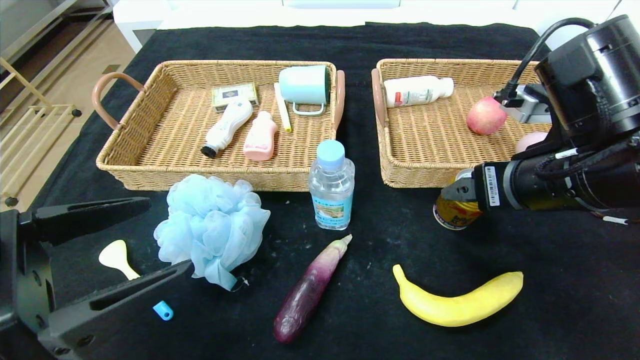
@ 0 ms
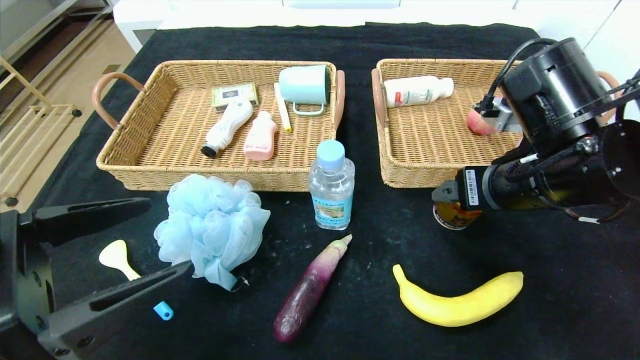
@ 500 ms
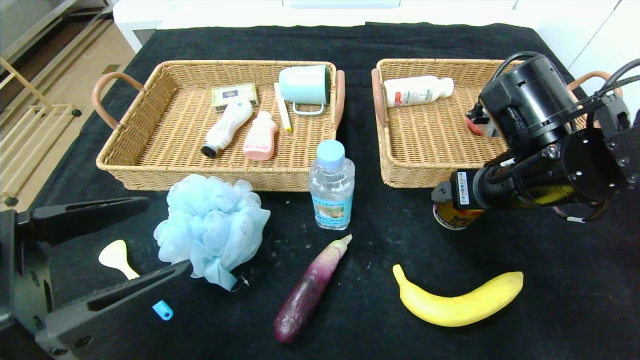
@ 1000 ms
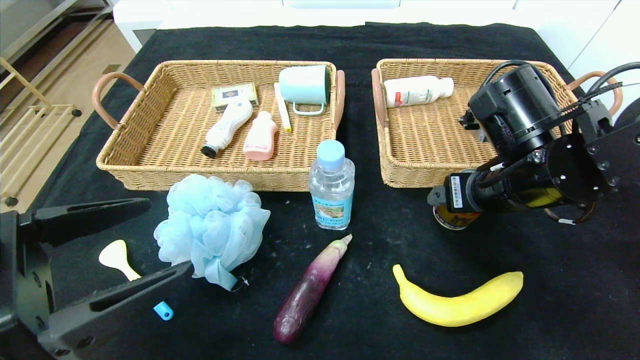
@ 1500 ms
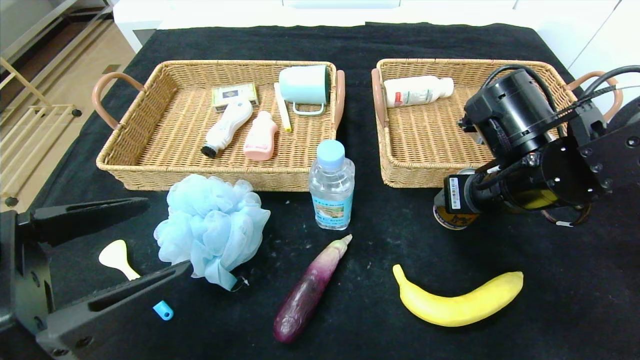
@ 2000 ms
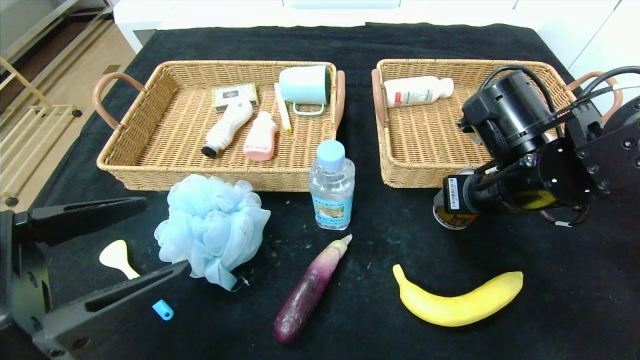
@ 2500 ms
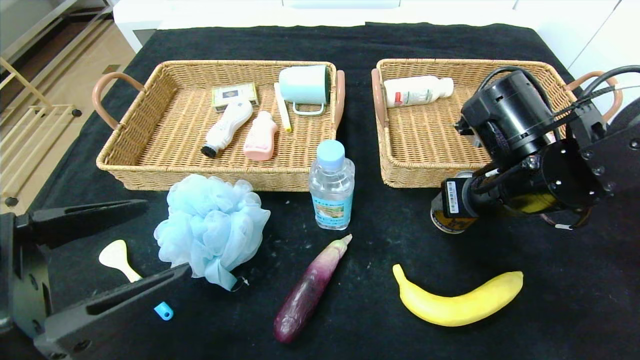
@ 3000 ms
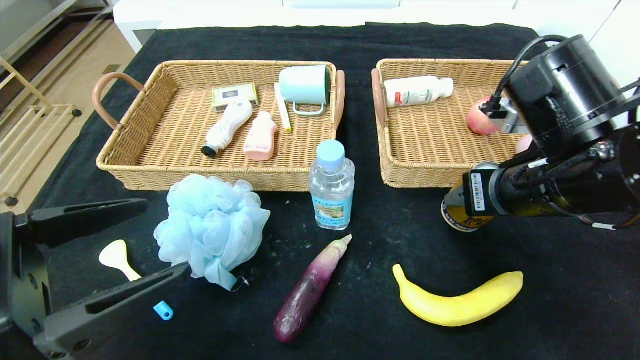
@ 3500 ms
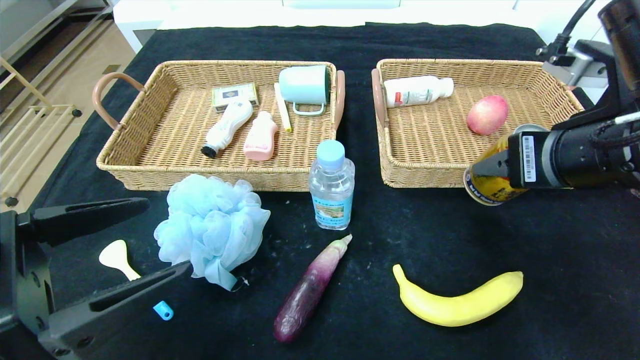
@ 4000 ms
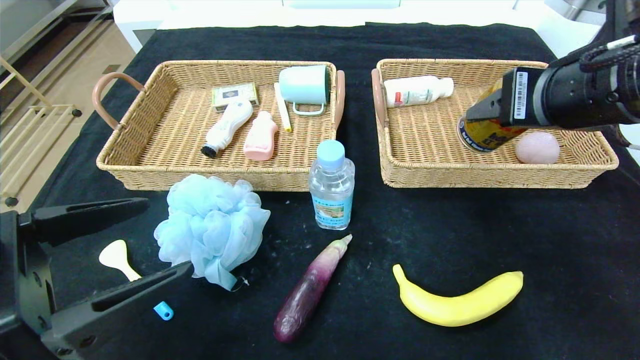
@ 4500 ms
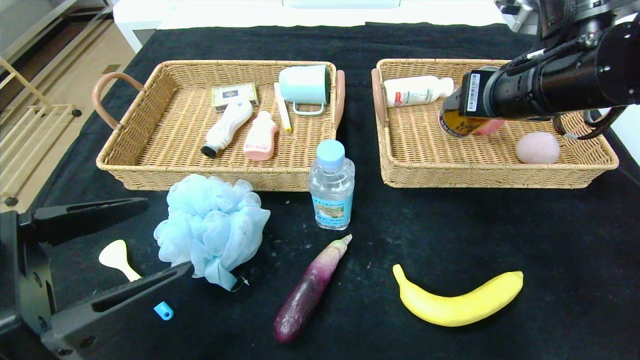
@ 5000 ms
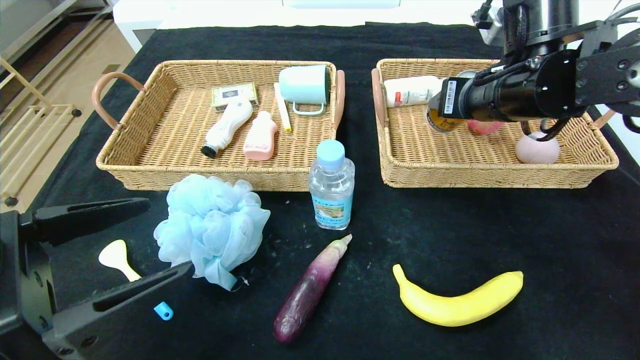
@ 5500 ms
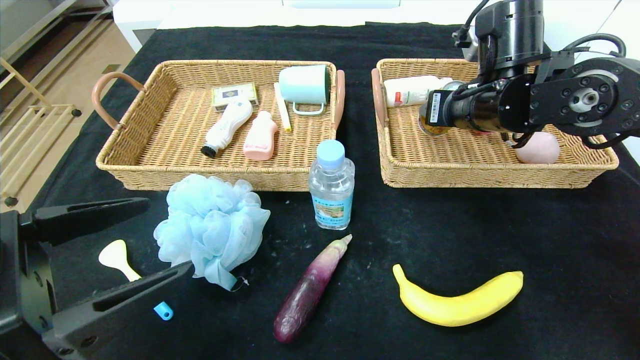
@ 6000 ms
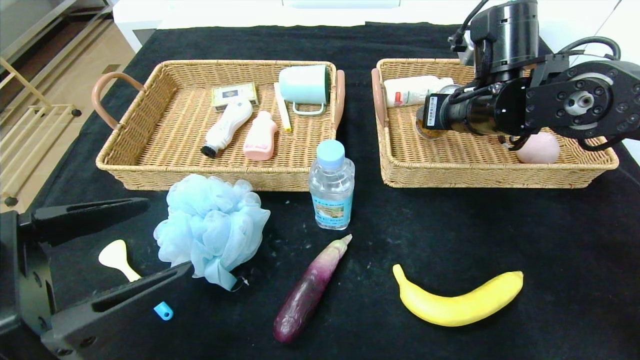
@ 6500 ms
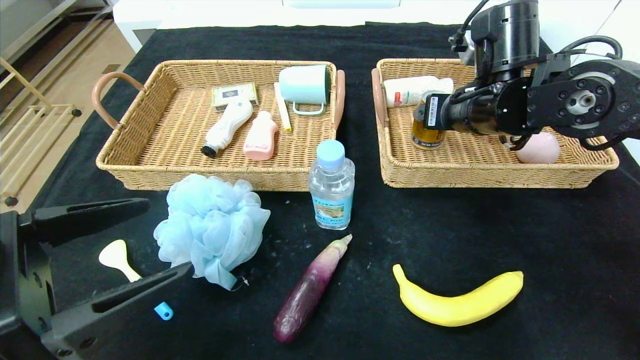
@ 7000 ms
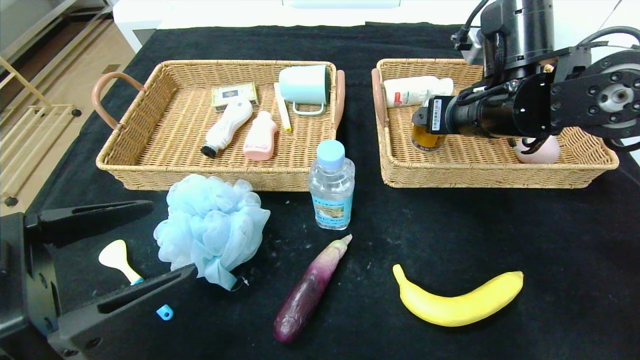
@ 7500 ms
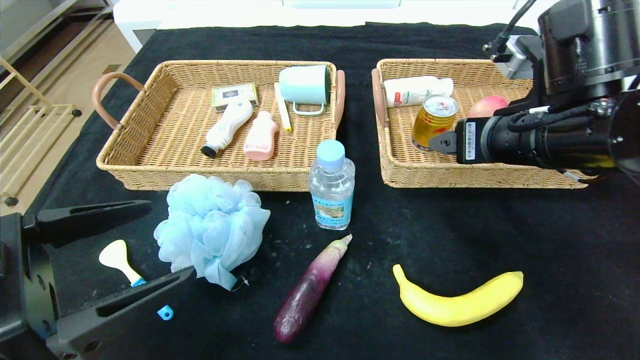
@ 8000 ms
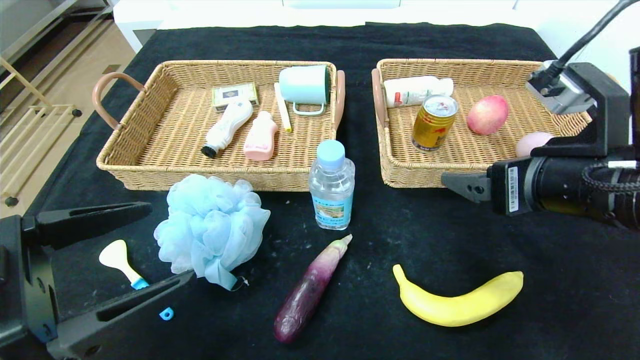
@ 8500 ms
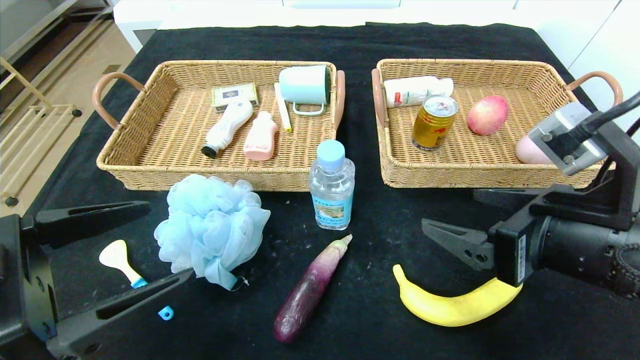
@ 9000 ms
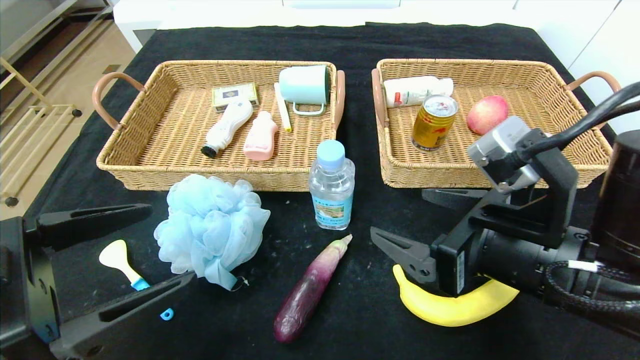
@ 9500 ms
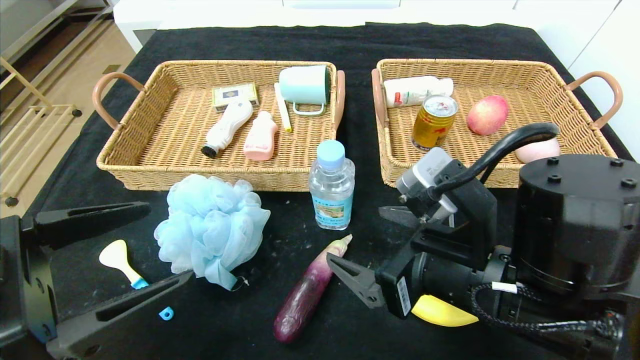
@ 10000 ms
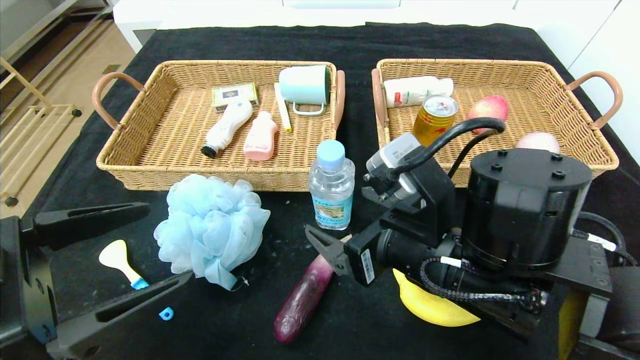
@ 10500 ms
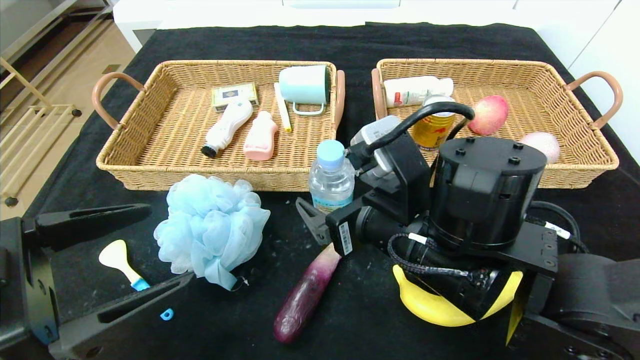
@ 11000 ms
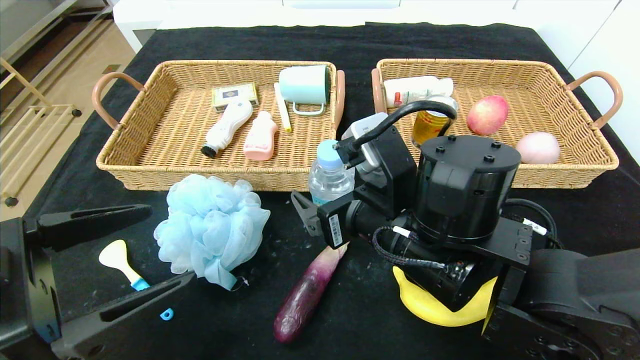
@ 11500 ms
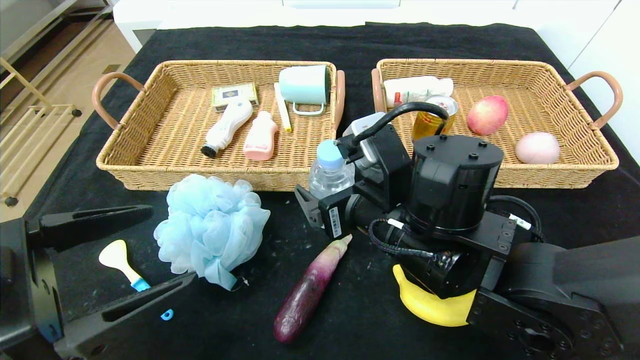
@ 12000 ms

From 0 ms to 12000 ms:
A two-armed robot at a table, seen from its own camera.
Step, from 0 ms to 7000 ms: Grasp the Red Bull and put it in the right basket.
From 0 ms to 2000 ms: The right gripper ends up some 5 cm from where it was, and closes its fingers.
From 2000 ms to 4000 ms: The right gripper moves backward and upward, roughly 10 cm.
From 4000 ms to 6000 ms: The right gripper is displaced forward by roughly 15 cm.
From 6000 ms to 8000 ms: The right gripper travels backward by roughly 10 cm, and opens.
From 8000 ms to 10000 ms: The right gripper travels downward, backward and to the left by approximately 15 cm.
From 10000 ms to 12000 ms: The right gripper goes approximately 10 cm forward and to the left.

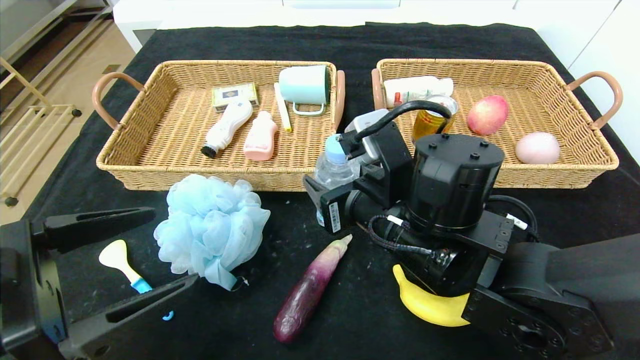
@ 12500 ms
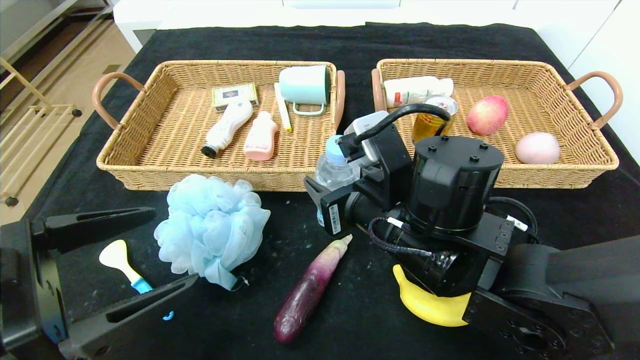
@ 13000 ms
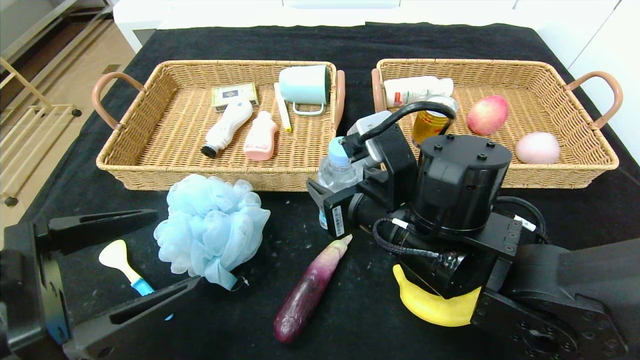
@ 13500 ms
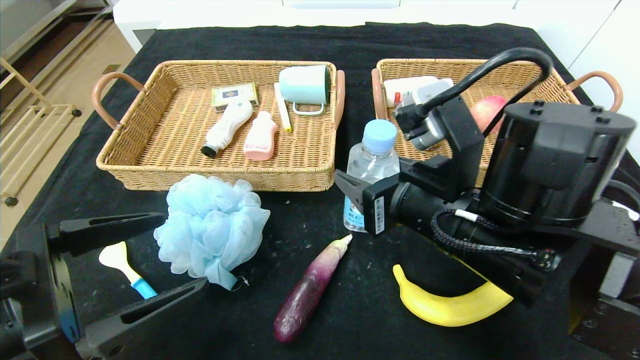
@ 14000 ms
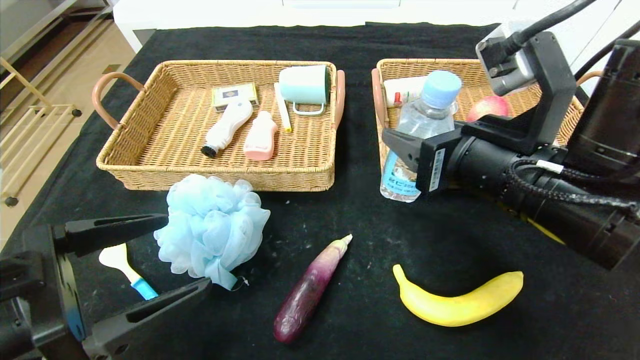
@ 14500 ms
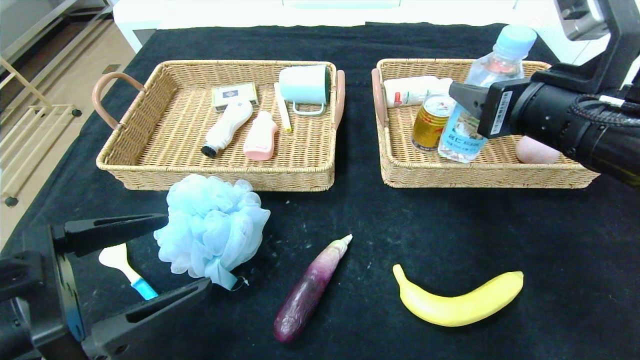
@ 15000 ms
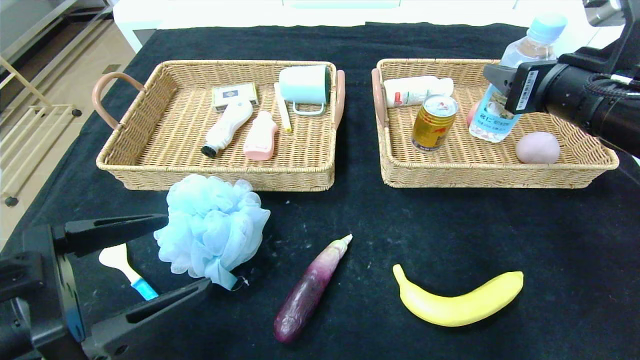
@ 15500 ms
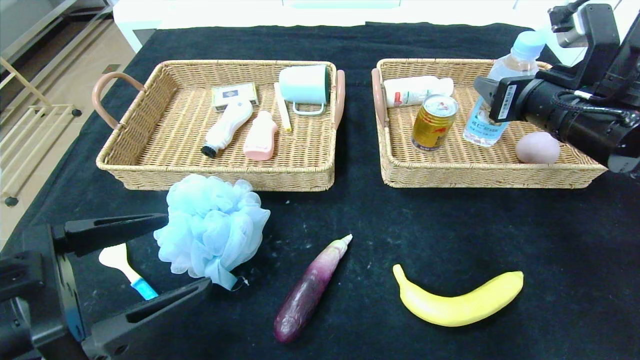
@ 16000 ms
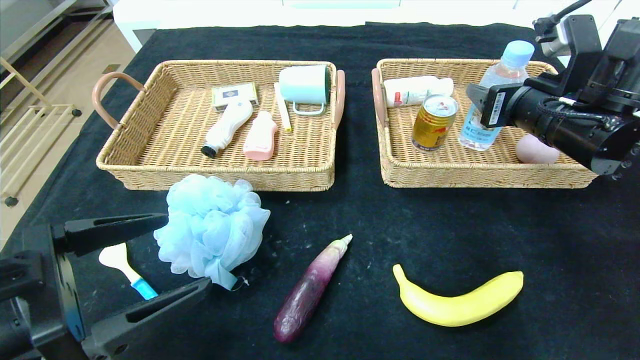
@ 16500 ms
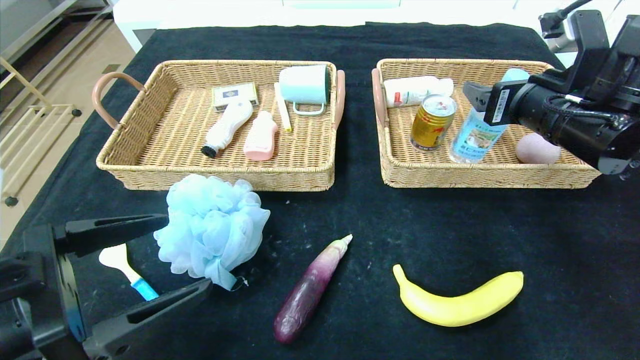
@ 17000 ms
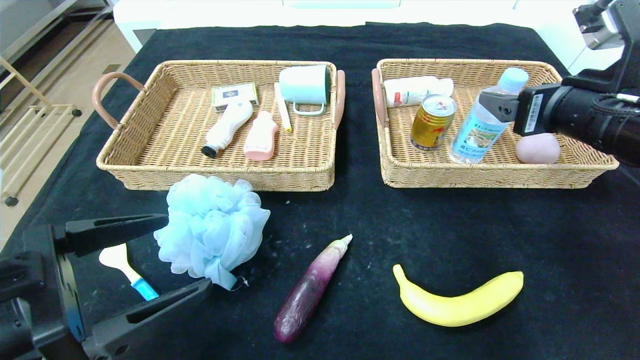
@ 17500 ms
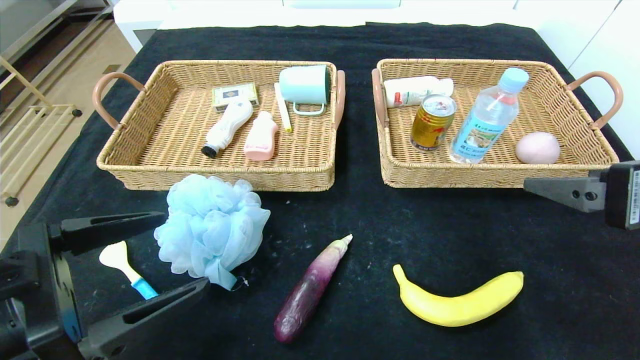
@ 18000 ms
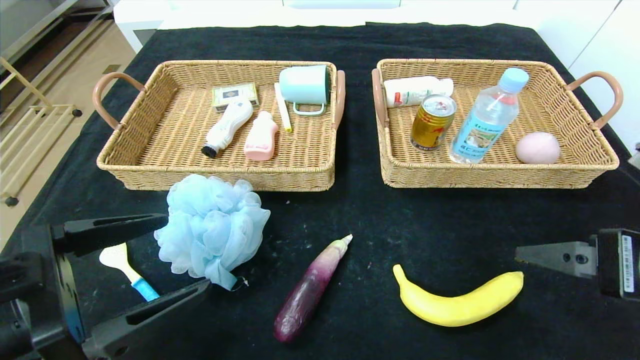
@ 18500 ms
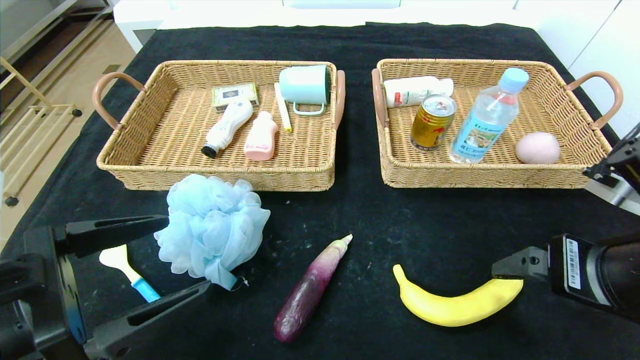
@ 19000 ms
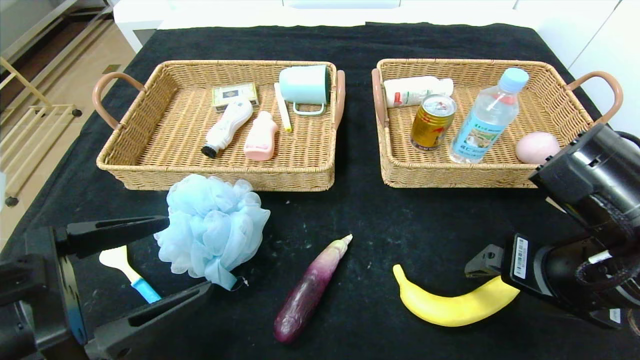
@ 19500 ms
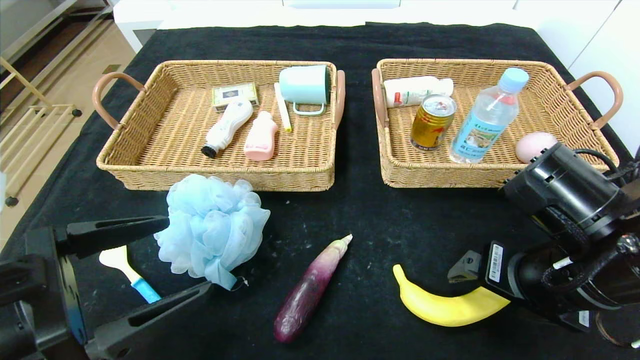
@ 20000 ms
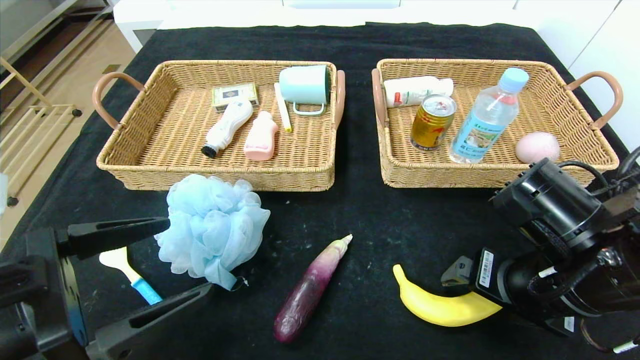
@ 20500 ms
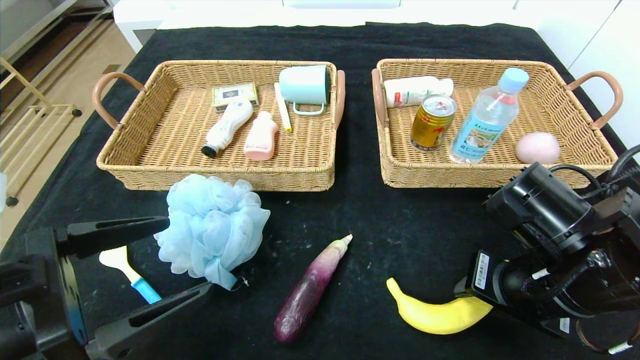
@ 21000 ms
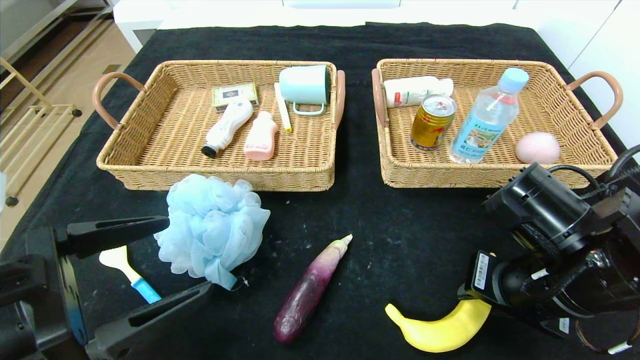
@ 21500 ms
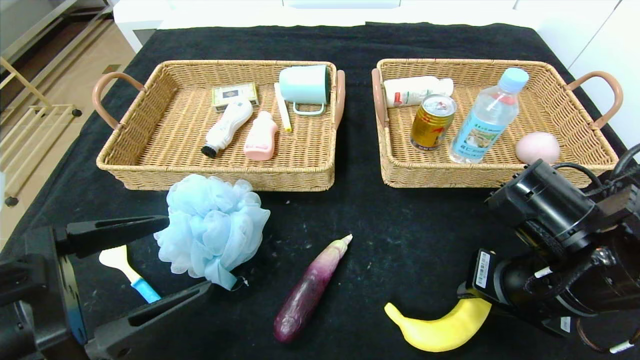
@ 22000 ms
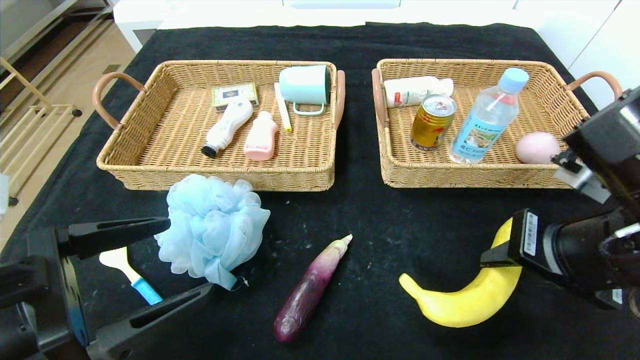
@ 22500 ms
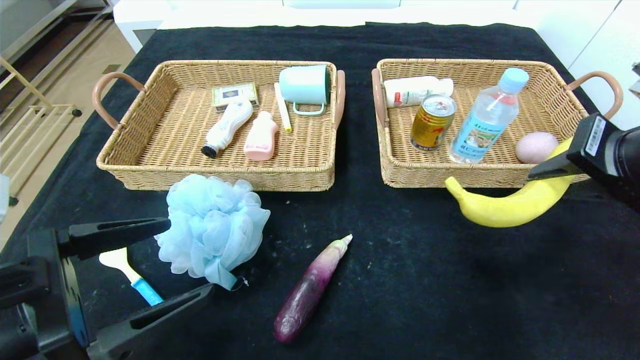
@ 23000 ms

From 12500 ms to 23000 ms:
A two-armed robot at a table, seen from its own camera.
Step, from 12500 ms to 16500 ms: Grasp the soda water and put it in the right basket.
From 12500 ms to 14500 ms: The right gripper heads to the right and upward, covering approximately 10 cm.
From 14500 ms to 16500 ms: The right gripper travels forward and to the right by about 15 cm.
From 16500 ms to 19000 ms: The right gripper travels backward by some 15 cm, and opens its fingers.
From 19000 ms to 21000 ms: The right gripper moves downward, approximately 5 cm, and closes.
From 21000 ms to 23000 ms: The right gripper goes some 15 cm upward and to the right.
